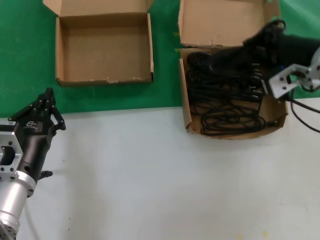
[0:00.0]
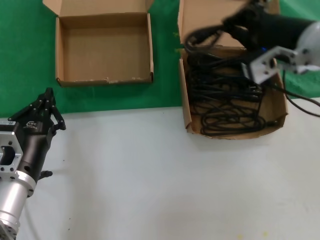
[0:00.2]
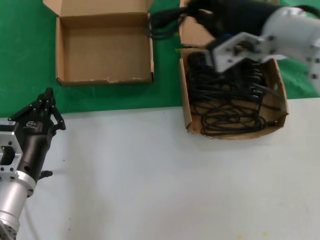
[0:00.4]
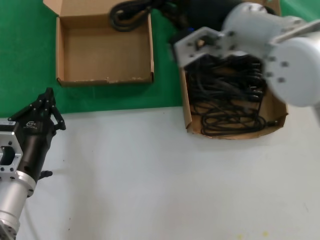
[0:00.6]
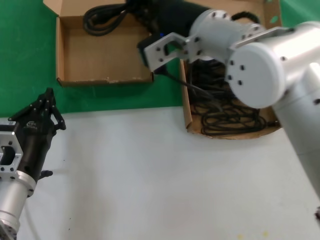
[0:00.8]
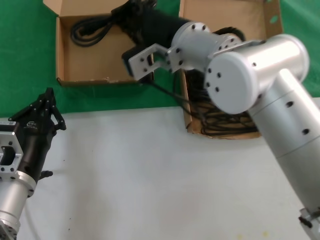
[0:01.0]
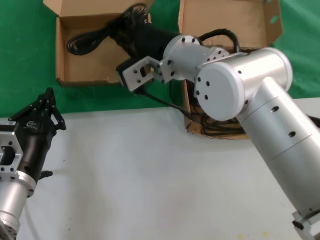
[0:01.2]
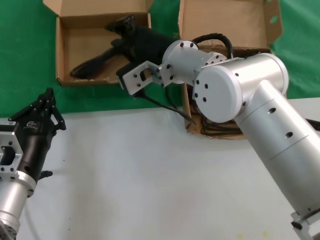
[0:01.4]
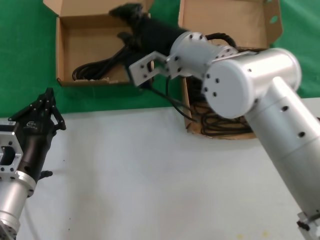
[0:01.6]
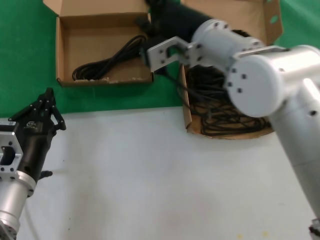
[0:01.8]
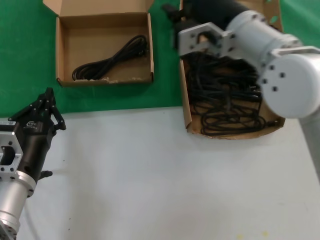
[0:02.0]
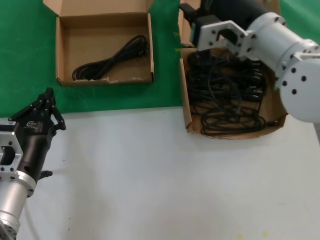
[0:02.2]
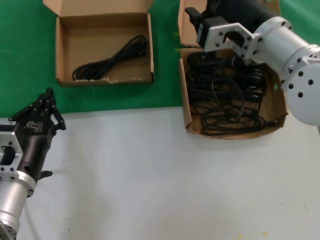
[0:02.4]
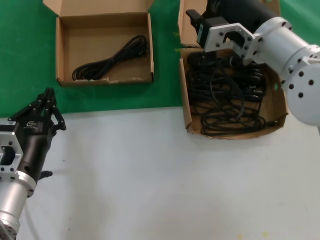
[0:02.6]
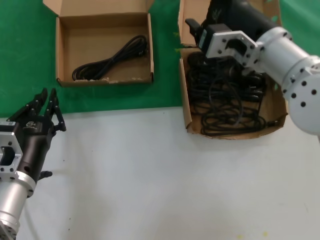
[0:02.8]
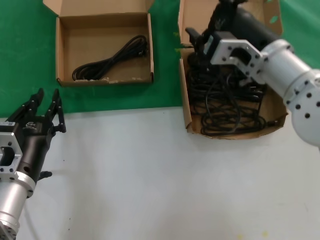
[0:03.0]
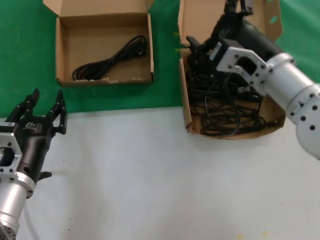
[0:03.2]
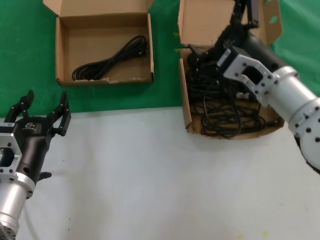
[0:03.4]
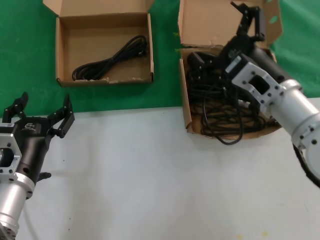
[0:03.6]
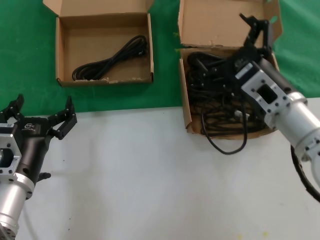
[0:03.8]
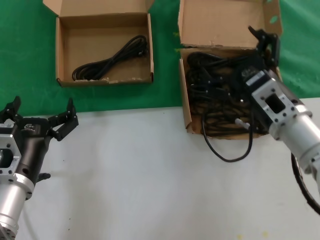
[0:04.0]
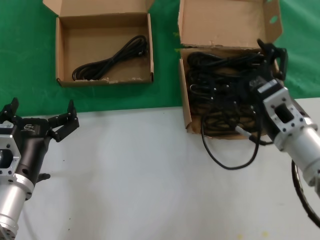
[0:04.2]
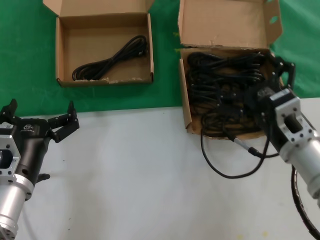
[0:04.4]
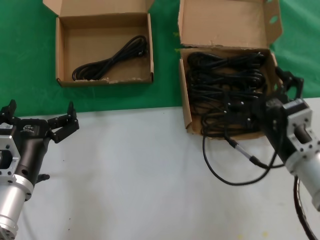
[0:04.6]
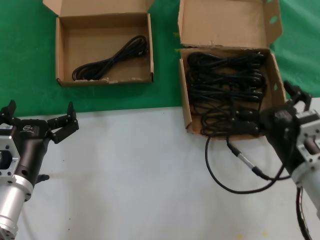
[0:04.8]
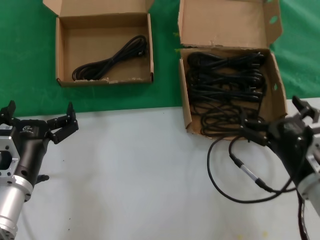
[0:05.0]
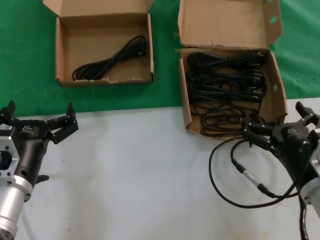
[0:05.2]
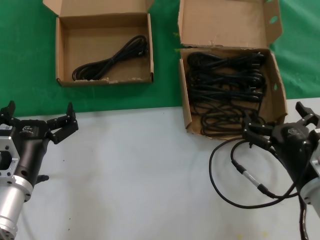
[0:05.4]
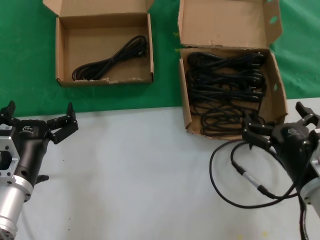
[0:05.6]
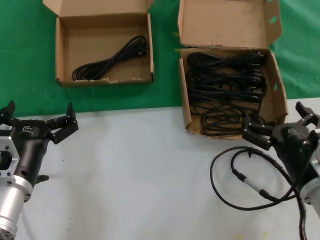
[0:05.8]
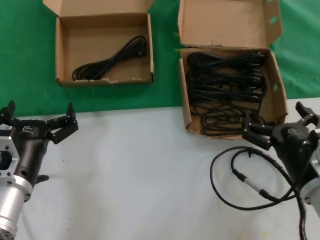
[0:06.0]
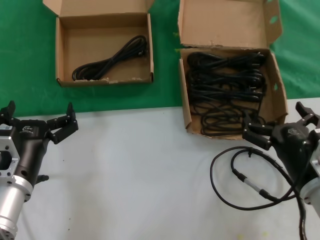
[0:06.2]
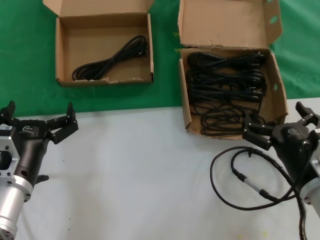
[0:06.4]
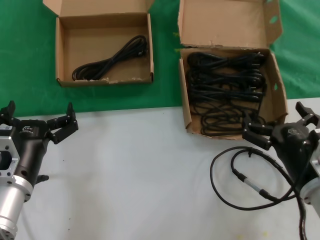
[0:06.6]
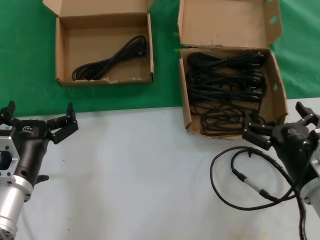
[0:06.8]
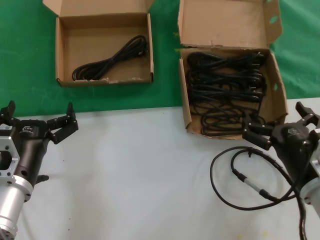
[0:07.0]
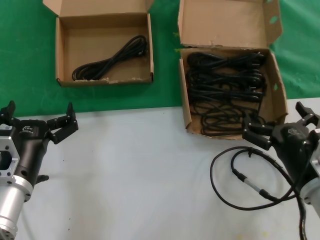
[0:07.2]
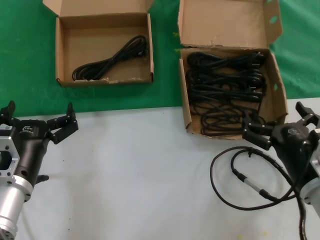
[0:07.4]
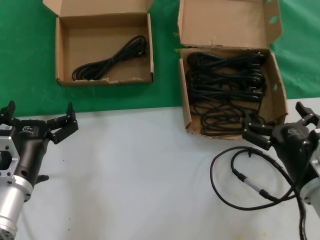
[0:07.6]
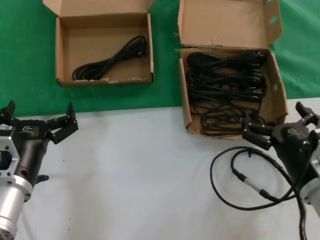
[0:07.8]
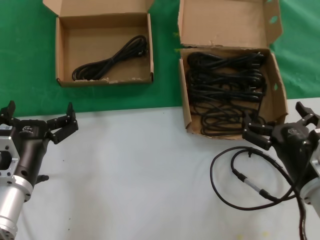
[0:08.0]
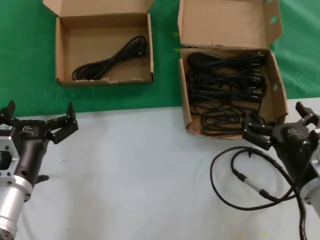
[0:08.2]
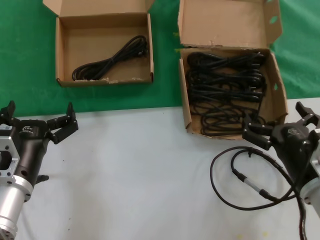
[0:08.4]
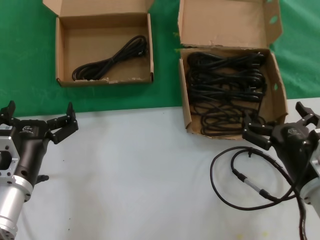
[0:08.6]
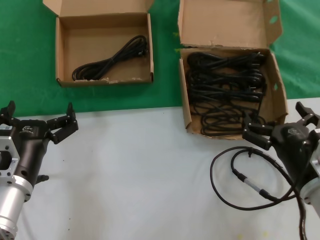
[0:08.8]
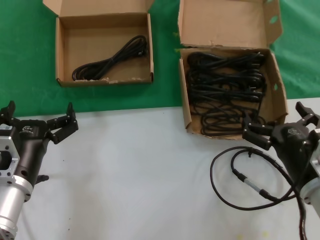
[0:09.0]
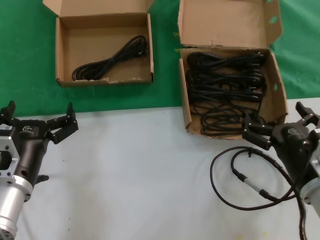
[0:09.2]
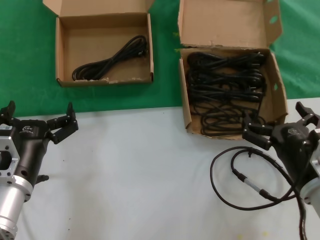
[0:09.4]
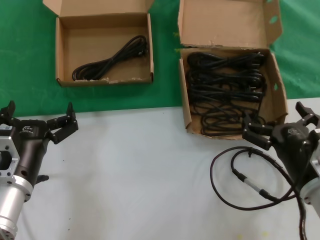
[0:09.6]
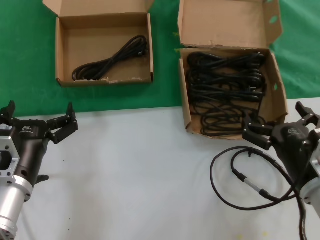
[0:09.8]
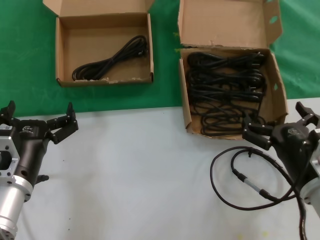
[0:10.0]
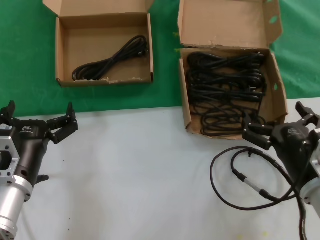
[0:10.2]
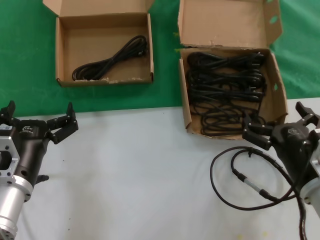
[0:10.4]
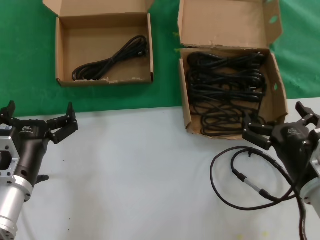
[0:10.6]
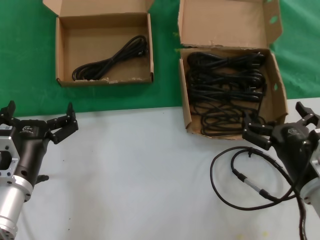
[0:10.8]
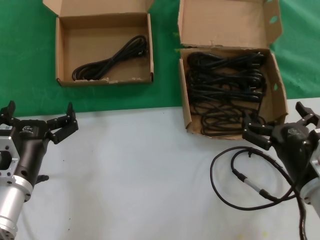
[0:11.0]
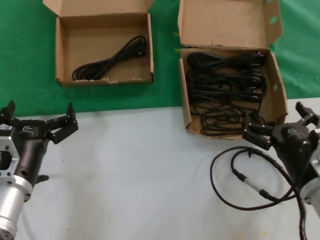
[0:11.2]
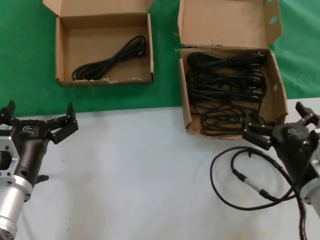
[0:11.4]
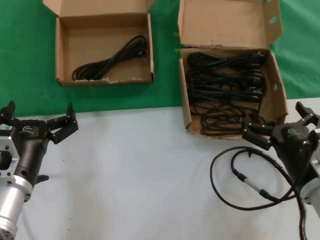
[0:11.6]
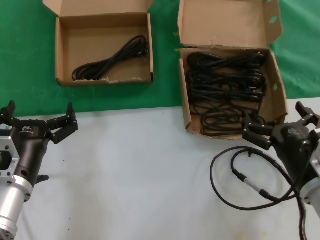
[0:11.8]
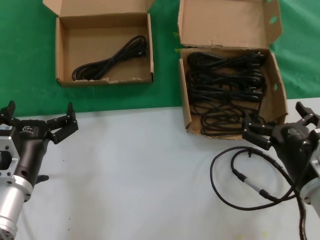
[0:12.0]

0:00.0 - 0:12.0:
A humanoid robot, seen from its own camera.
Task of the whole recording: take the parts from the box containing them and put them into an empty box.
Step, 0:00.0 - 0:01.2: Place the data cable in the another box.
0:00.0 - 0:01.6: The right hand is displaced to the left by approximately 20 cm.
0:01.6 - 0:03.0: The right hand moves to the right, about 10 cm.
0:03.0 - 0:04.4: The right hand shifts roughly 15 cm downward and backward.
0:04.4 - 0:06.0: The right hand goes some 10 cm downward and backward.
0:06.0 - 0:12.0: The two hands keep their place.

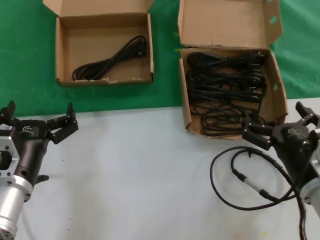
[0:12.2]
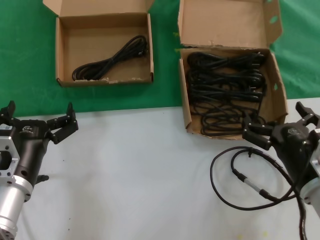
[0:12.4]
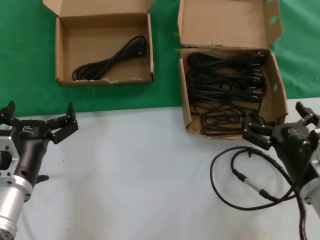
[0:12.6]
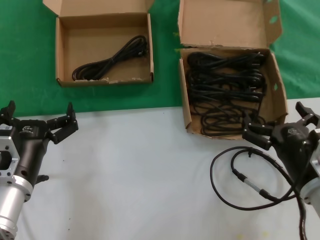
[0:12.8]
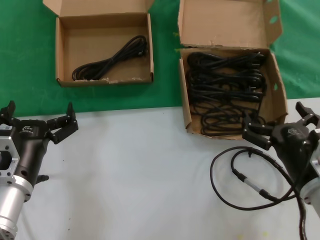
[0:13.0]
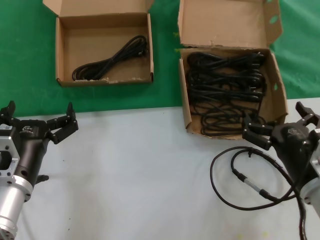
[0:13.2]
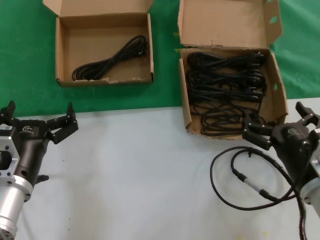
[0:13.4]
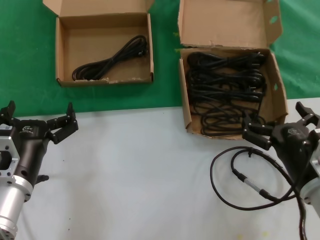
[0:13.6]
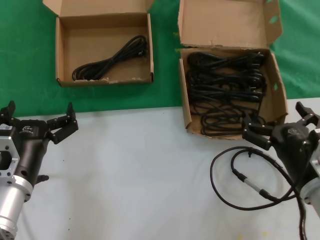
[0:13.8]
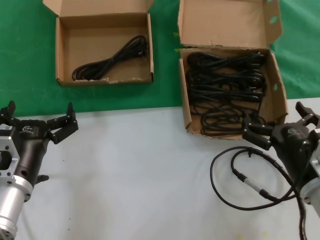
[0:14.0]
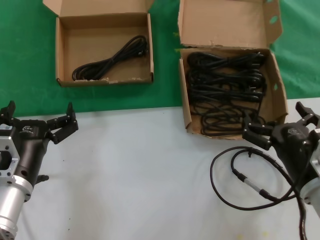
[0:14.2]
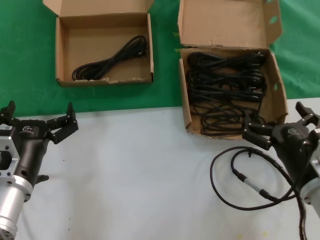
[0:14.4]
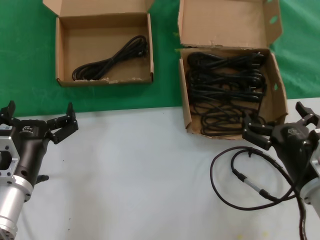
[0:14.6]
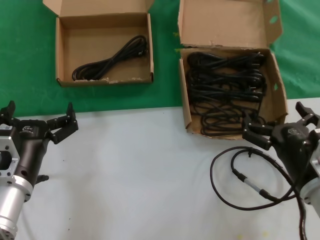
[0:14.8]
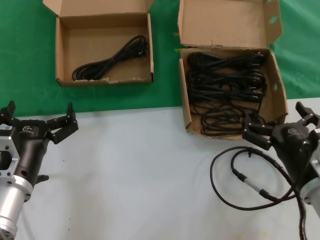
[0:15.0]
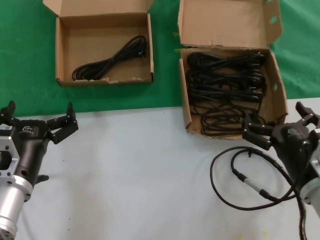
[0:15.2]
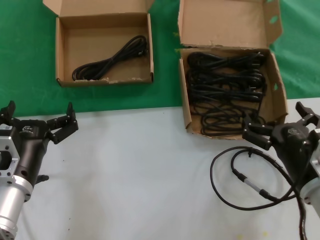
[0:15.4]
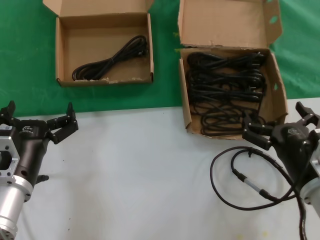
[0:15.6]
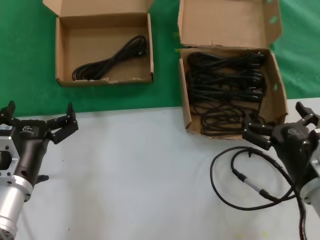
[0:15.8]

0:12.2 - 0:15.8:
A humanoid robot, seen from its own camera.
Task of the whole recording: take the parts from the box containing them and put them into an empty box.
0:12.2 - 0:15.8: Neither hand changes place.

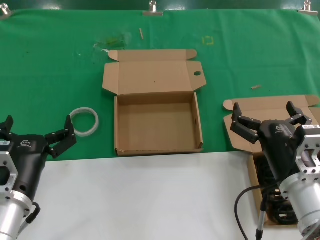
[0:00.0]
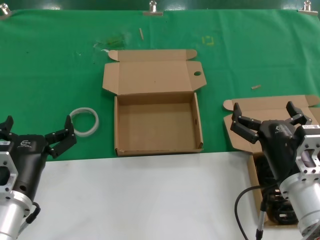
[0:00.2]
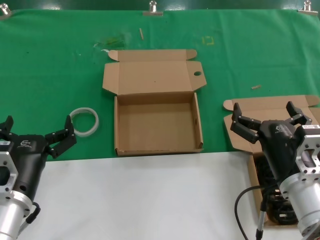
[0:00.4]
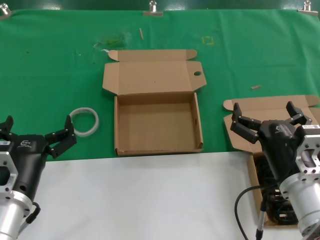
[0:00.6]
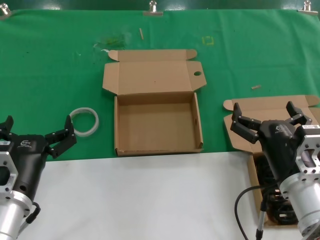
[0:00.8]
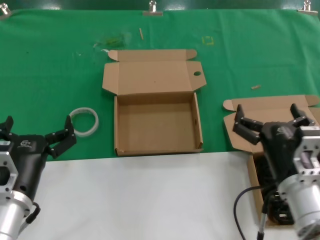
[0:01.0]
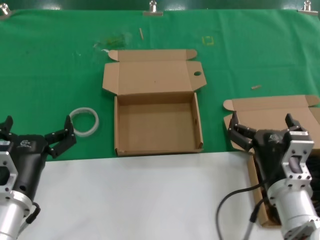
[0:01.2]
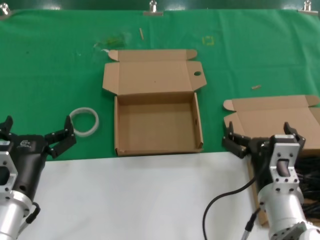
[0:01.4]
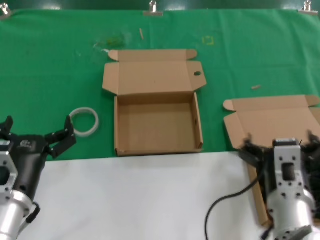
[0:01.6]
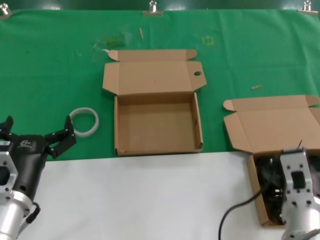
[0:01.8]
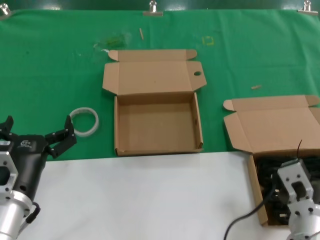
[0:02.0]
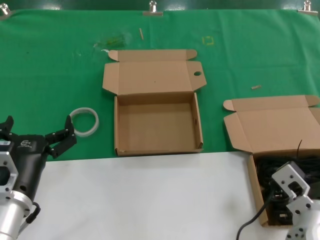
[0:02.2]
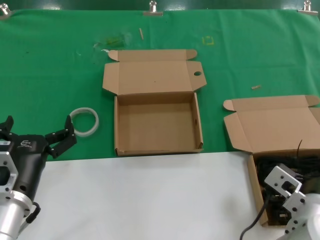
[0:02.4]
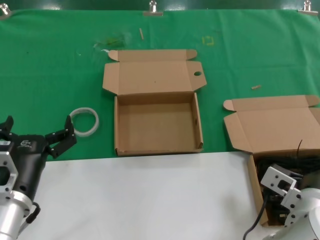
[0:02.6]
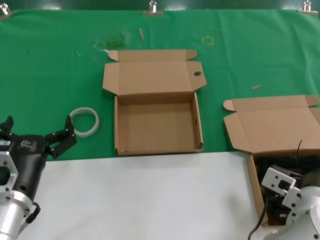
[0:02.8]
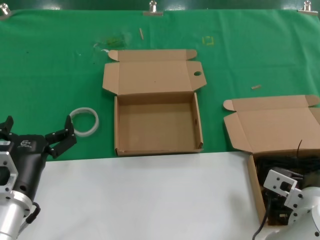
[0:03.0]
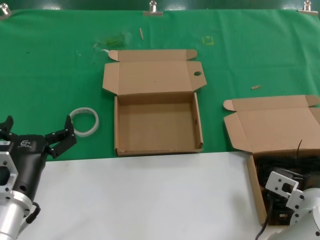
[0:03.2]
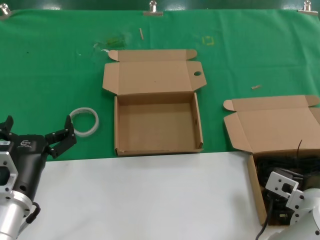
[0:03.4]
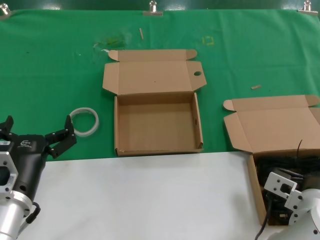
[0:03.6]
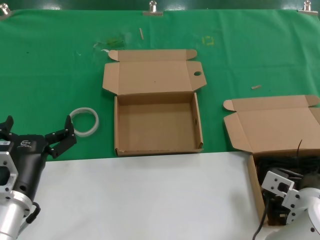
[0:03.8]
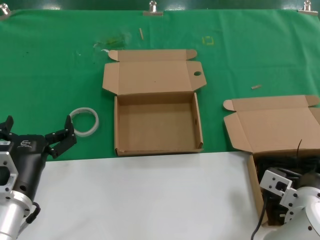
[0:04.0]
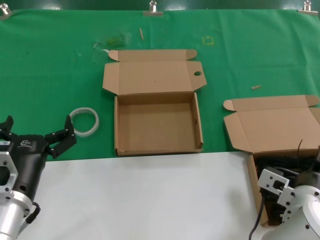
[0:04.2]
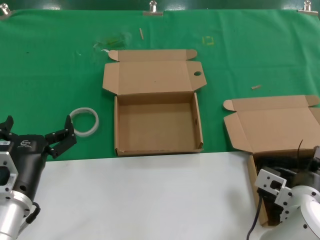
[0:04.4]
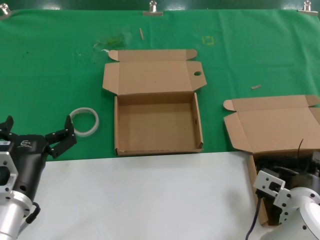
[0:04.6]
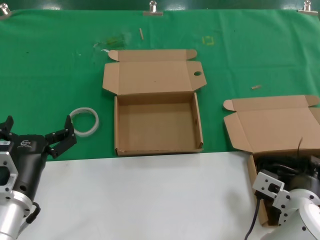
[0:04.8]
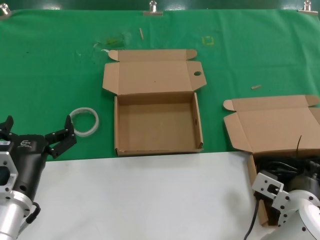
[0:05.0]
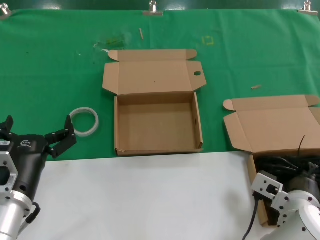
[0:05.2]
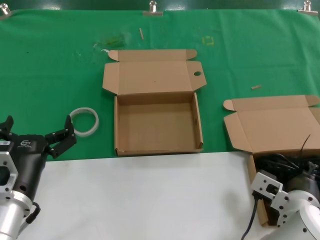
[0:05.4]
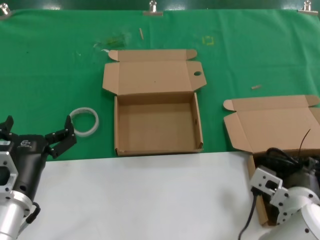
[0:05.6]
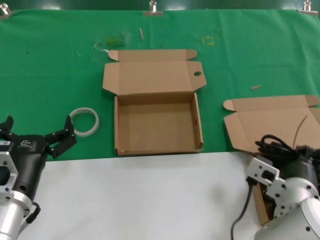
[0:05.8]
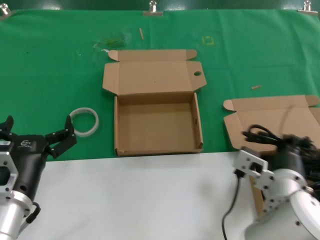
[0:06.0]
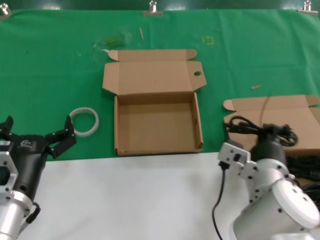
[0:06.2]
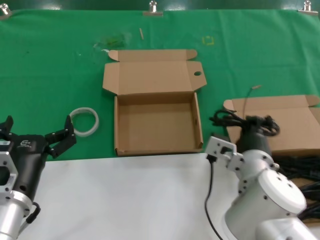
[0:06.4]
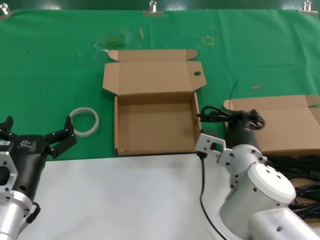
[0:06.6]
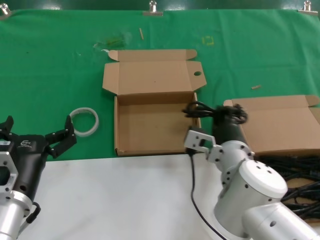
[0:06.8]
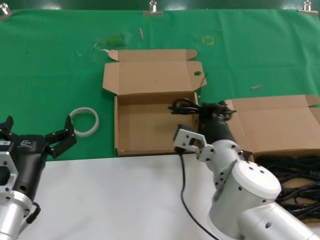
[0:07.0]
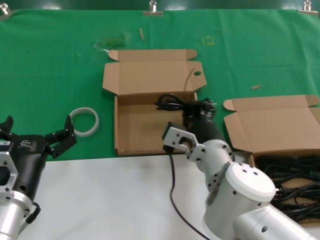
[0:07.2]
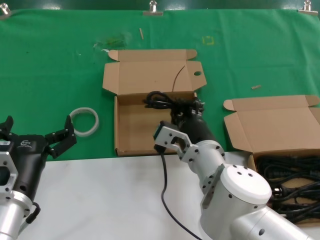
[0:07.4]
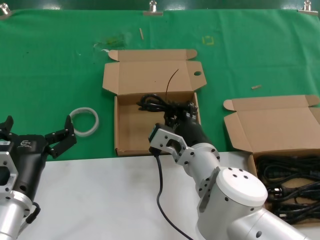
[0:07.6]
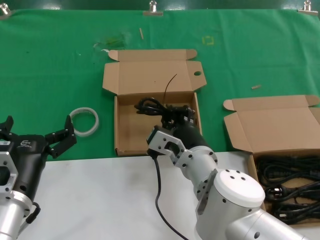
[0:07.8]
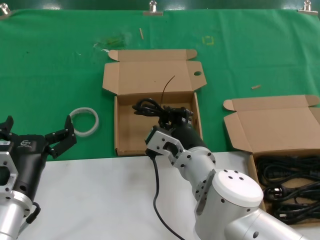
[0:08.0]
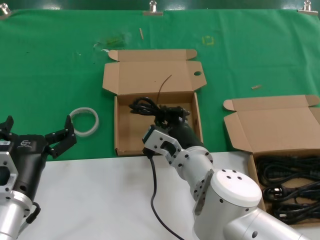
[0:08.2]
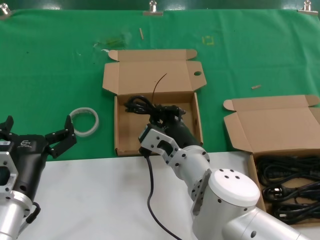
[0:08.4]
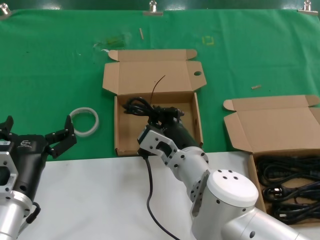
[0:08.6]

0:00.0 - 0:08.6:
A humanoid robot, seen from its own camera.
Task of the whole recording: take the parts from the box containing them and put them into an empty box.
Step, 0:00.0 - 0:05.4: Grasp the data cable.
0:00.0 - 0:01.4: The right hand ends up roughly 5 cm from where it was.
0:02.8 - 0:05.8: The hands stay close to where they were, moving slightly.
0:05.8 - 0:07.2: The right hand moves to the left and forward, roughly 10 cm.
0:07.2 - 0:08.6: There are only small adjustments of the hands.
